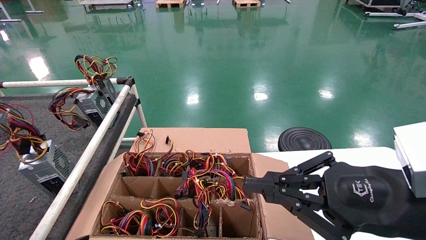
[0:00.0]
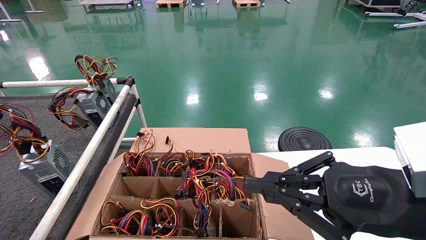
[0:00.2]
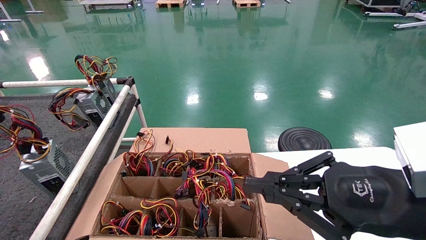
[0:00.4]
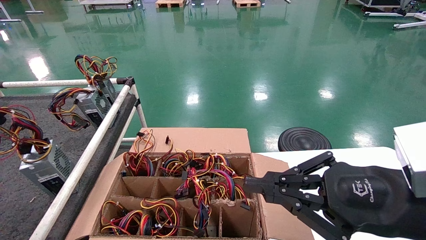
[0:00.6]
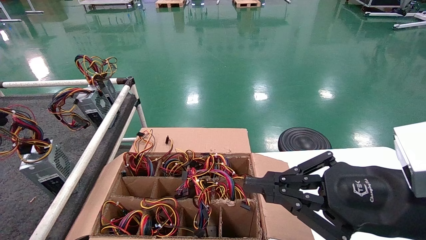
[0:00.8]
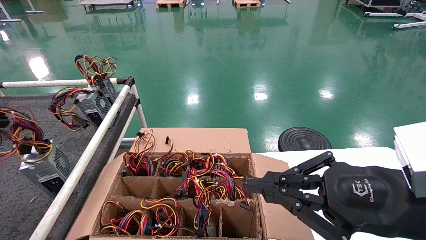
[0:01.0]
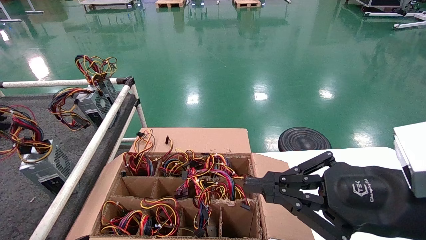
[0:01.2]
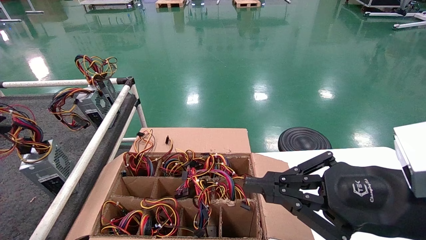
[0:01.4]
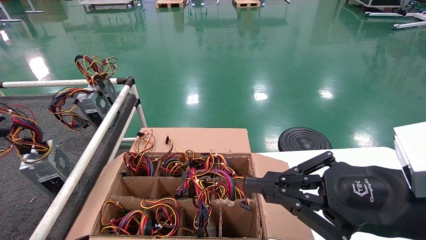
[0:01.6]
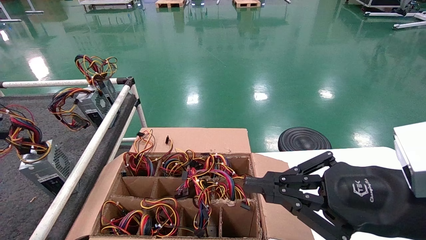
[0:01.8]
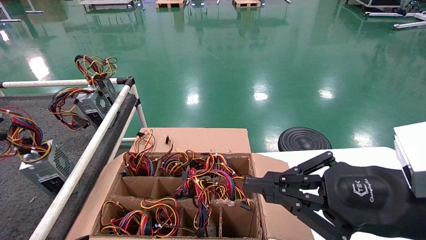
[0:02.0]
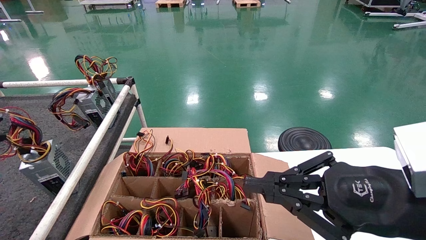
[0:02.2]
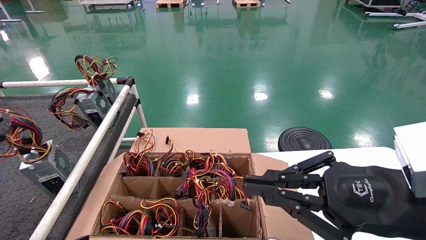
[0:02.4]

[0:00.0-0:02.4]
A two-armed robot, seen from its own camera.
0:00.0 to 0:01.2: The grippers stay close to where they were, moving slightly.
0:01.2 to 0:02.4: The left gripper opens.
